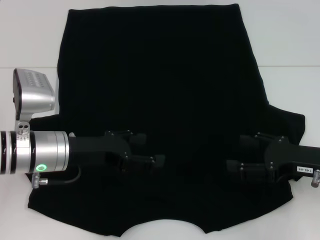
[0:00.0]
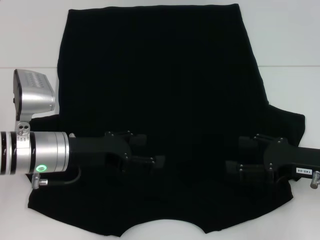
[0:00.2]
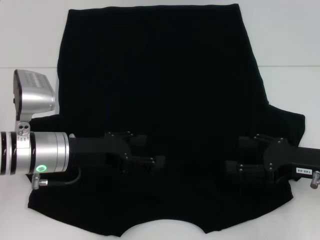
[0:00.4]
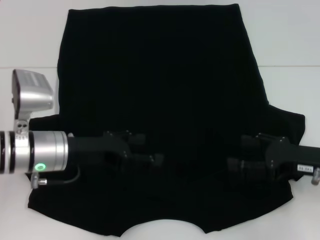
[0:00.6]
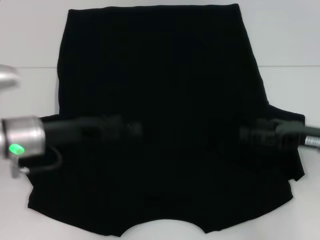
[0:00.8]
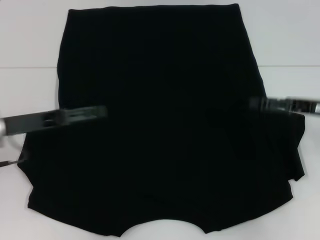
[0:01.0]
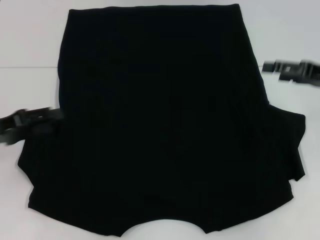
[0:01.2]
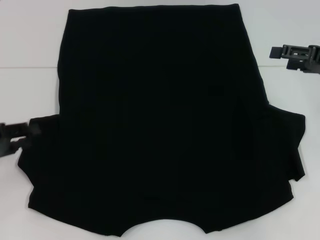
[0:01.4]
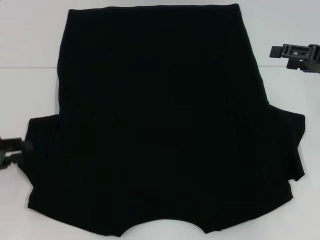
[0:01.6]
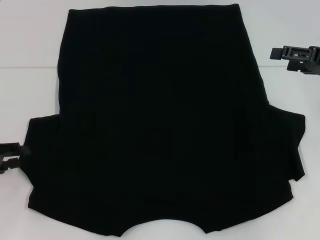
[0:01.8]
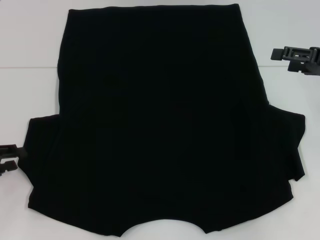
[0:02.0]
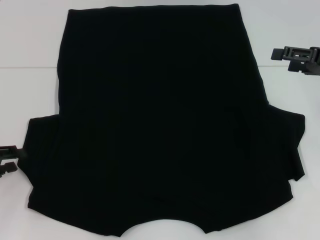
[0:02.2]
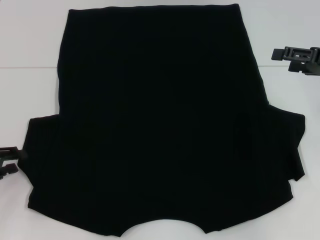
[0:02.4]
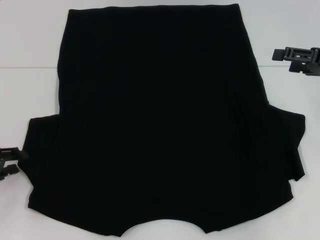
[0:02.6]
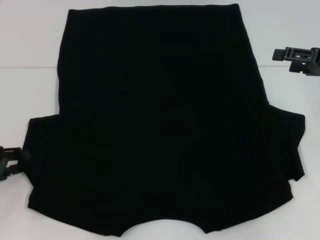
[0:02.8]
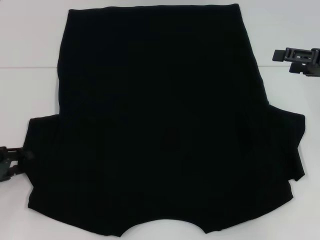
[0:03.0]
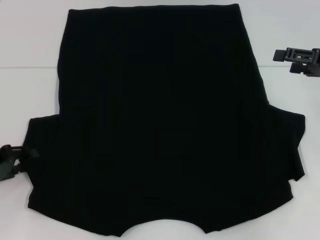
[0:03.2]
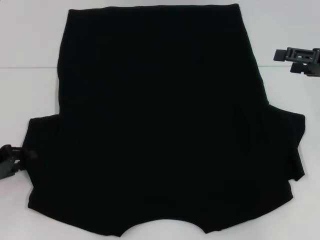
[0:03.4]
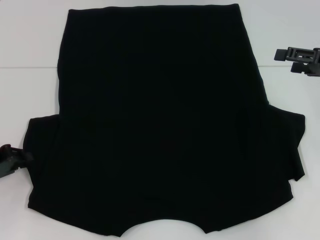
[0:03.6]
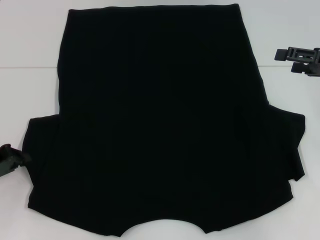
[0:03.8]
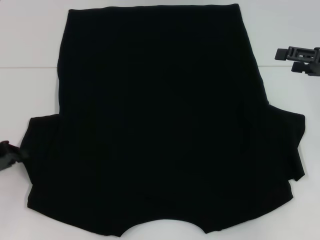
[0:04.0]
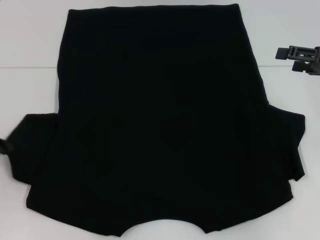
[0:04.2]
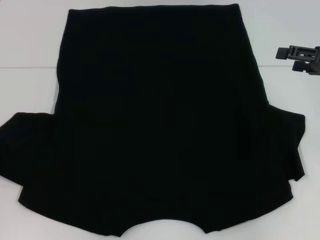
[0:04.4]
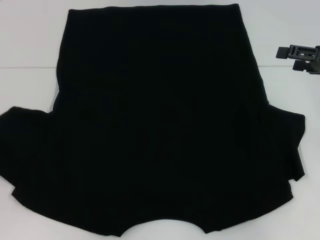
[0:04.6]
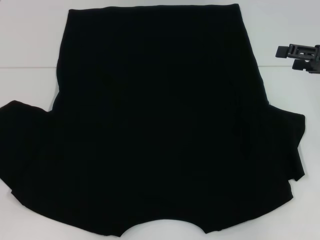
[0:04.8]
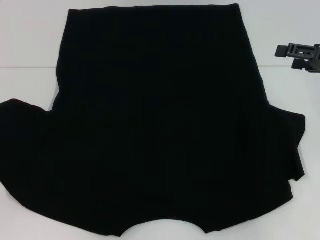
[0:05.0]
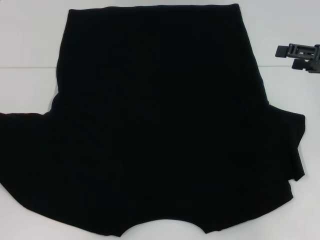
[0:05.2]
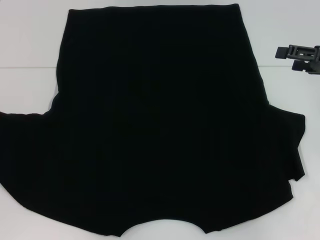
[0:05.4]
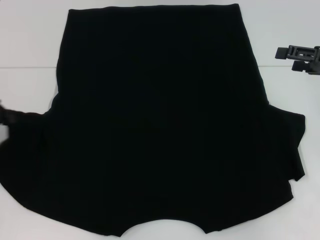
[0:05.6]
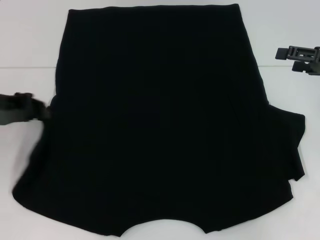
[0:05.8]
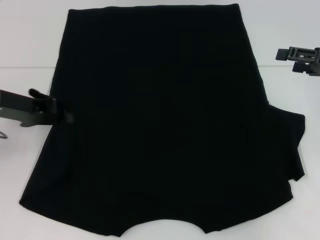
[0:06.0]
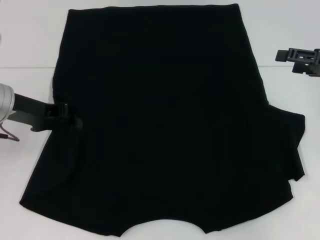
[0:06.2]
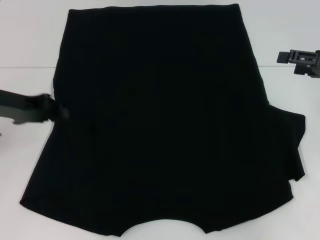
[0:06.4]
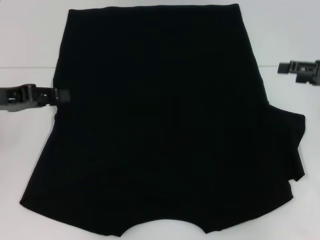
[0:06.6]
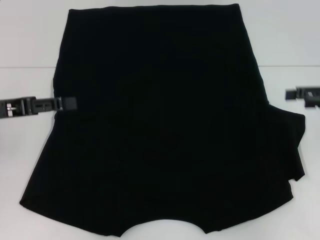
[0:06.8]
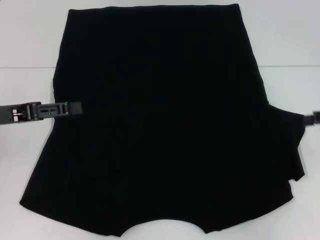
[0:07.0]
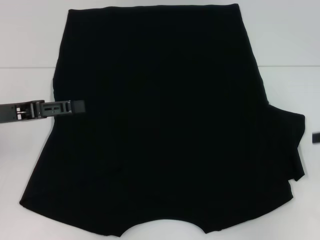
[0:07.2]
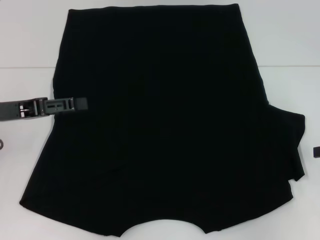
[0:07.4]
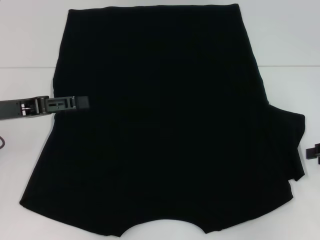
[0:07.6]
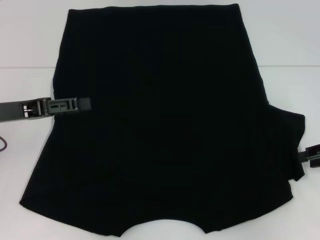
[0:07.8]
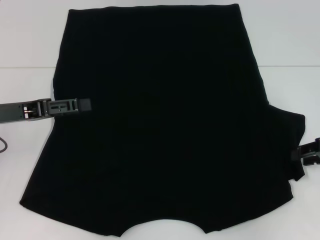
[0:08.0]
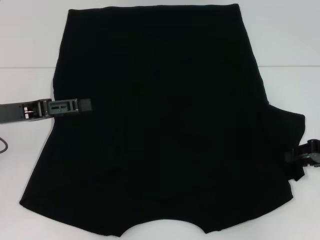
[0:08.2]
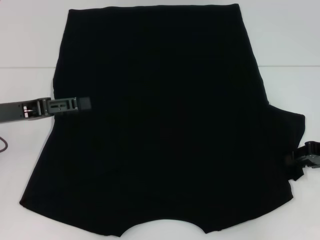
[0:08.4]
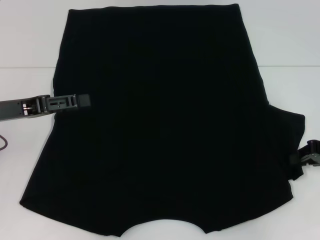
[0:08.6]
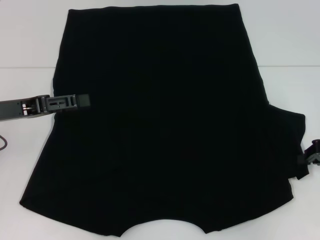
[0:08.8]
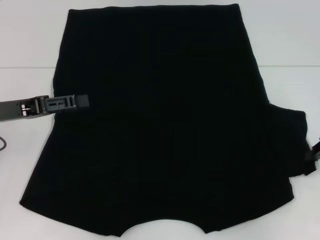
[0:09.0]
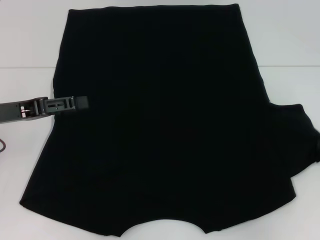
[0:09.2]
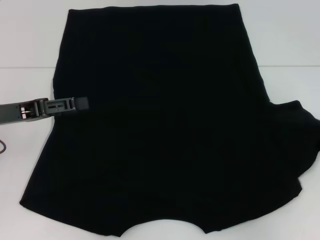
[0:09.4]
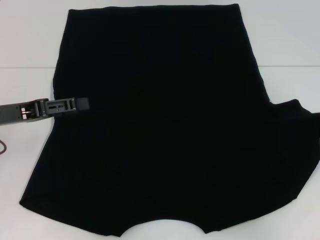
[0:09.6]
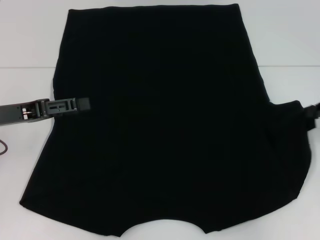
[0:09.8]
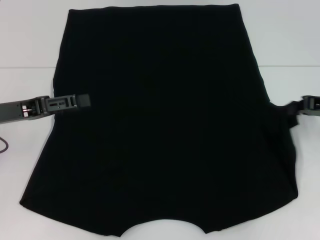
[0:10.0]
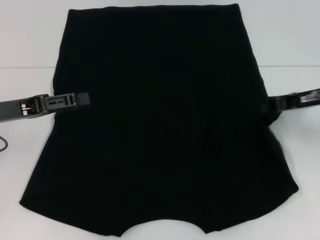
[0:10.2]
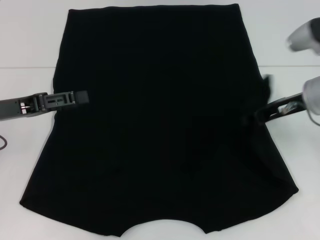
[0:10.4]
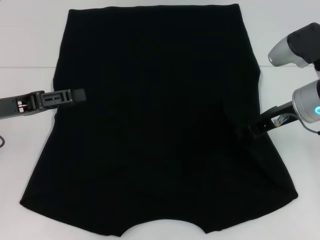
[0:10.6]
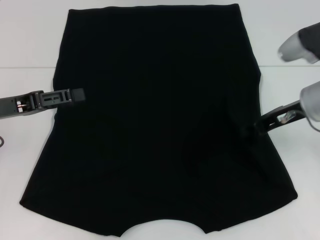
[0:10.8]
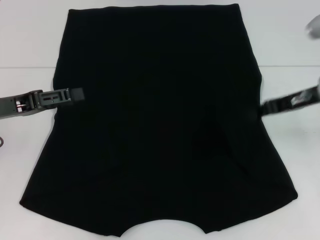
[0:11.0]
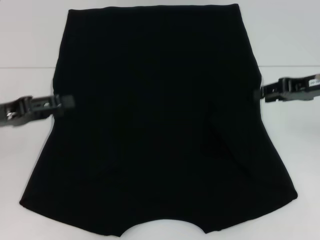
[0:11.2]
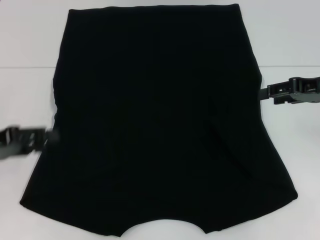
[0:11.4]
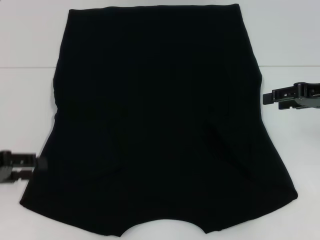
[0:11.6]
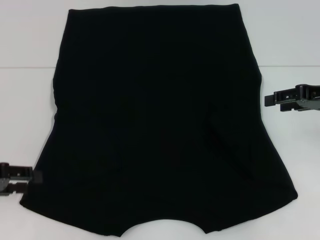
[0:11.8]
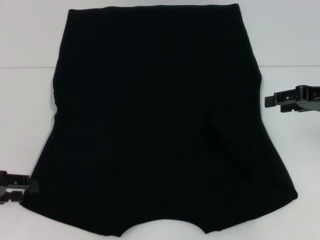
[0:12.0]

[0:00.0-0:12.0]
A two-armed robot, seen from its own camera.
Step, 0:00.0 to 0:07.0: Fold the bottom left sleeve with your left hand.
Step, 0:07.2 to 0:11.0: Fold the bottom right sleeve with your right hand.
0:00.0 to 0:01.6: The right gripper goes some 15 cm upward and forward. Meanwhile the left gripper goes about 15 cm to the left, and closes up.
0:01.6 to 0:03.0: The grippers move only a little.
0:03.0 to 0:04.4: The left gripper moves some 5 cm, and closes up.
0:04.4 to 0:06.0: The left gripper is displaced to the right, upward and forward by some 15 cm.
0:06.0 to 0:07.6: The left gripper opens; the right gripper heads backward, covering about 5 cm, and closes.
0:07.6 to 0:09.0: The right gripper closes its fingers.
0:09.0 to 0:10.4: The right gripper shifts some 15 cm to the left and forward.
0:10.4 to 0:12.0: The right gripper is displaced to the right by approximately 10 cm, and opens its fingers, while the left gripper travels backward and to the left by approximately 10 cm.

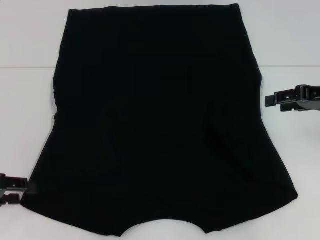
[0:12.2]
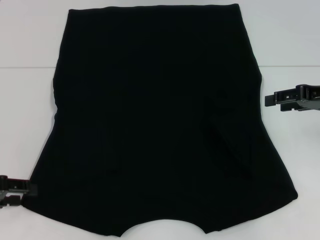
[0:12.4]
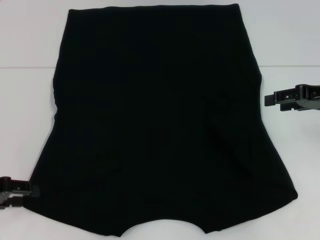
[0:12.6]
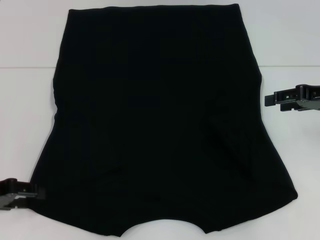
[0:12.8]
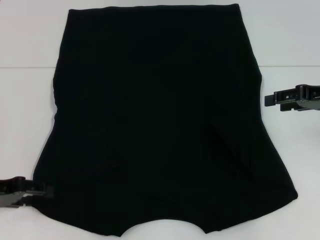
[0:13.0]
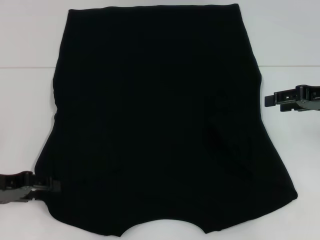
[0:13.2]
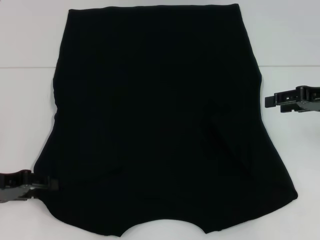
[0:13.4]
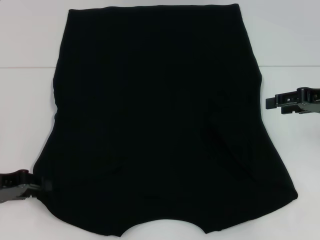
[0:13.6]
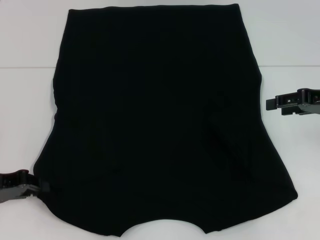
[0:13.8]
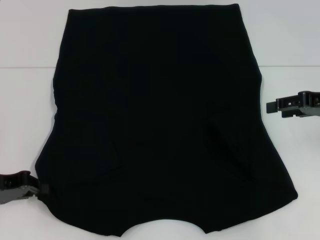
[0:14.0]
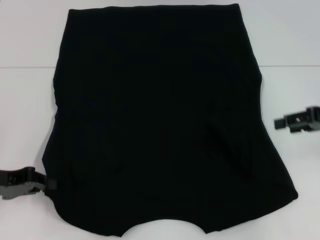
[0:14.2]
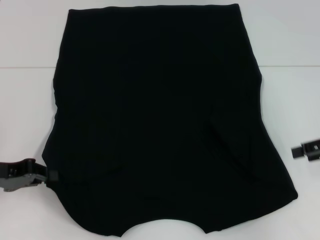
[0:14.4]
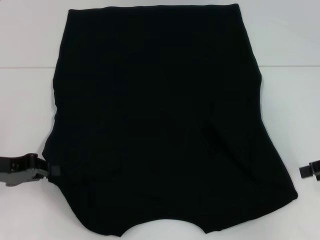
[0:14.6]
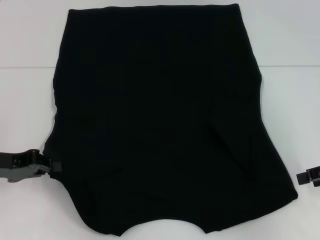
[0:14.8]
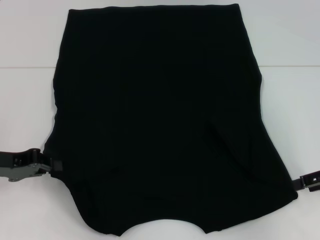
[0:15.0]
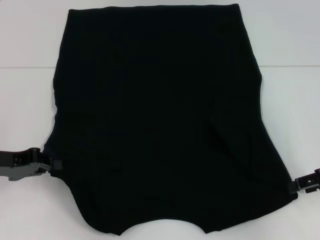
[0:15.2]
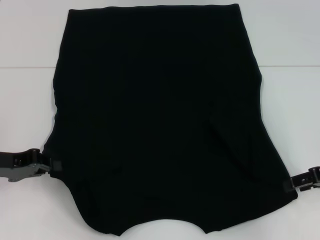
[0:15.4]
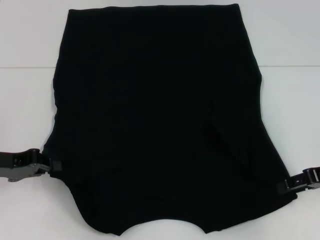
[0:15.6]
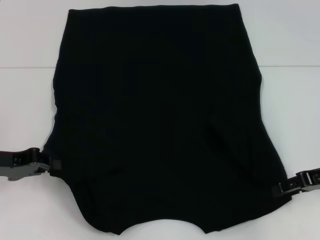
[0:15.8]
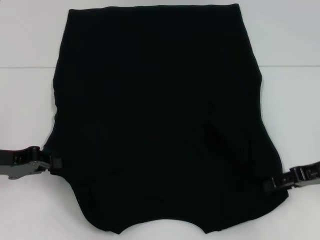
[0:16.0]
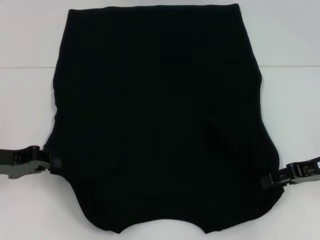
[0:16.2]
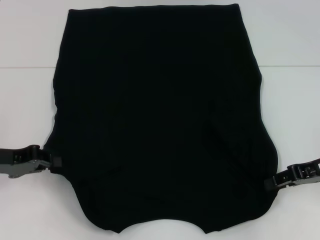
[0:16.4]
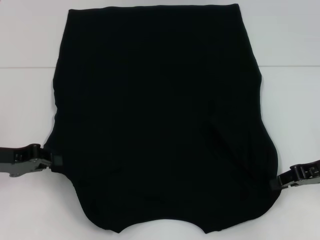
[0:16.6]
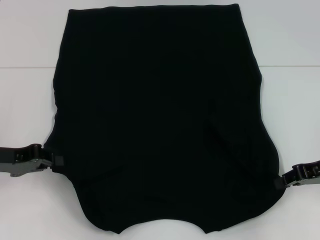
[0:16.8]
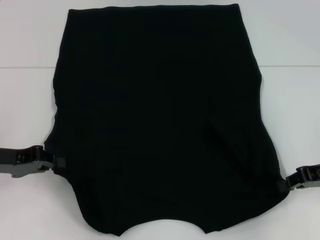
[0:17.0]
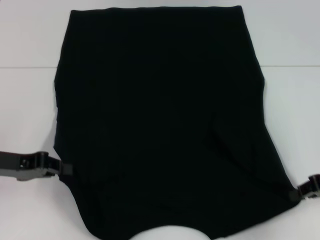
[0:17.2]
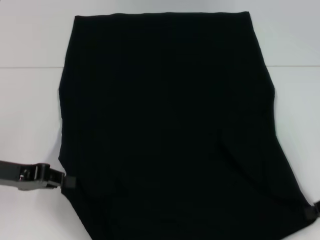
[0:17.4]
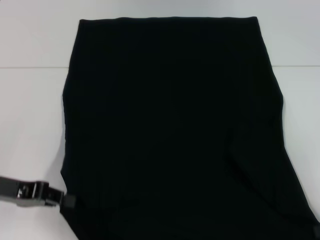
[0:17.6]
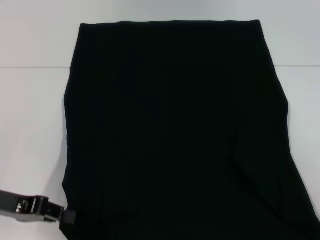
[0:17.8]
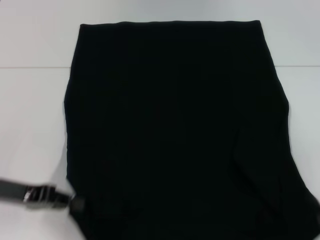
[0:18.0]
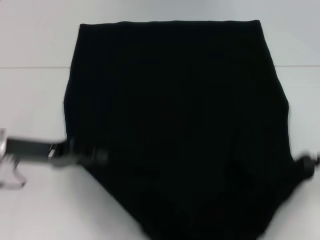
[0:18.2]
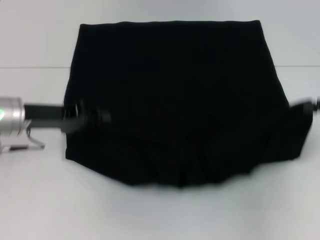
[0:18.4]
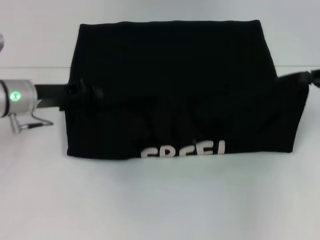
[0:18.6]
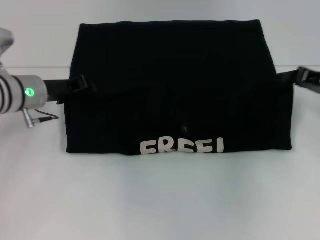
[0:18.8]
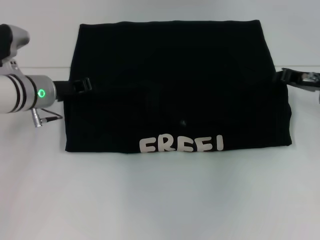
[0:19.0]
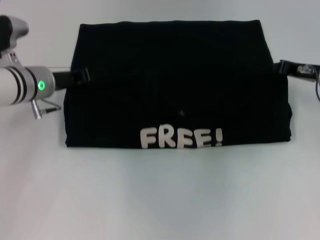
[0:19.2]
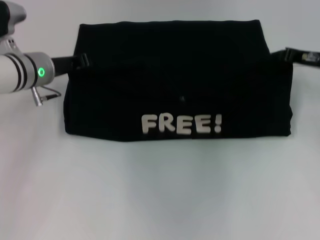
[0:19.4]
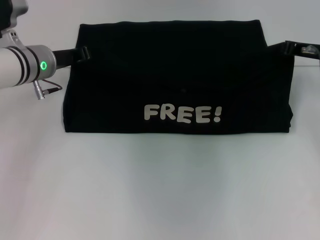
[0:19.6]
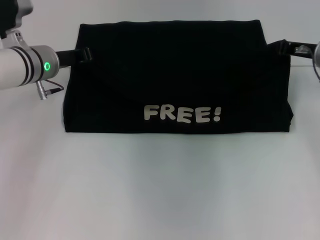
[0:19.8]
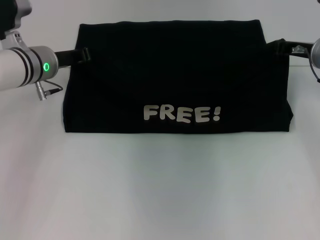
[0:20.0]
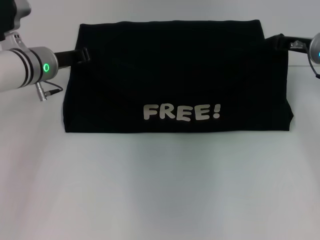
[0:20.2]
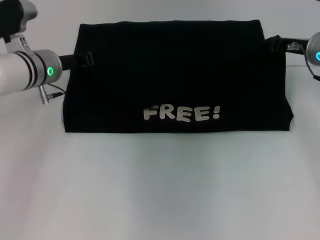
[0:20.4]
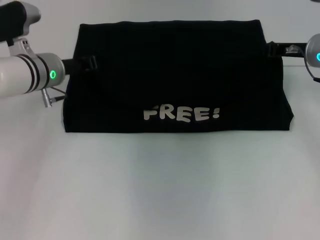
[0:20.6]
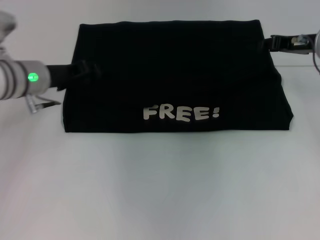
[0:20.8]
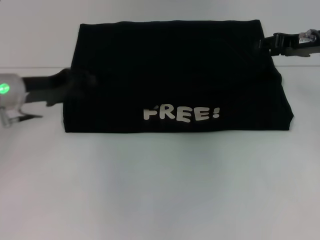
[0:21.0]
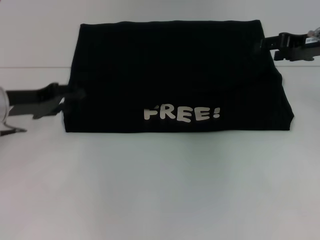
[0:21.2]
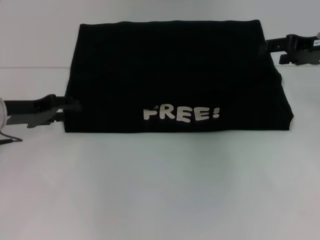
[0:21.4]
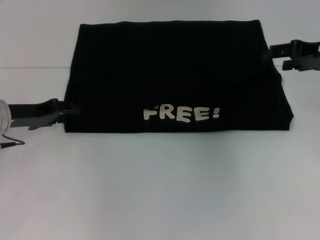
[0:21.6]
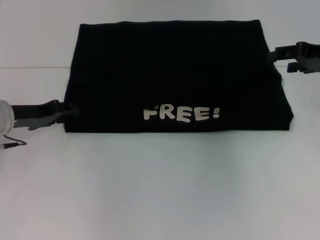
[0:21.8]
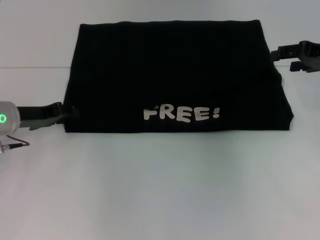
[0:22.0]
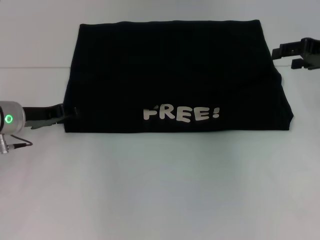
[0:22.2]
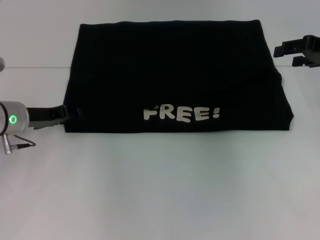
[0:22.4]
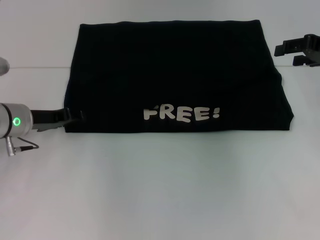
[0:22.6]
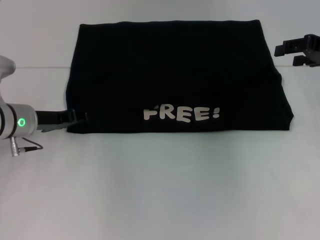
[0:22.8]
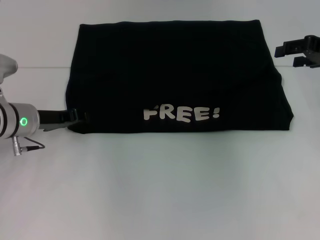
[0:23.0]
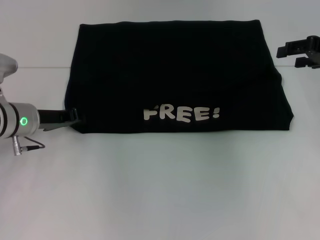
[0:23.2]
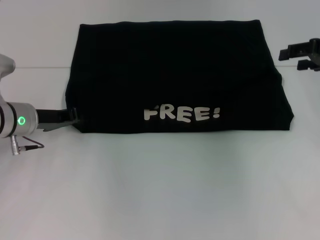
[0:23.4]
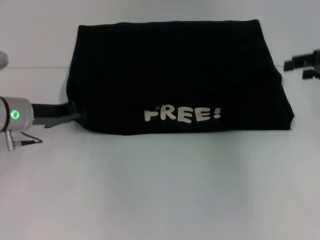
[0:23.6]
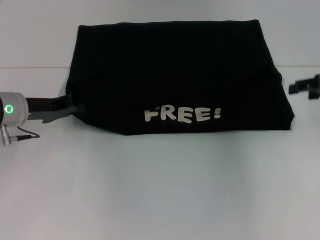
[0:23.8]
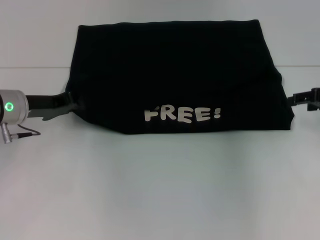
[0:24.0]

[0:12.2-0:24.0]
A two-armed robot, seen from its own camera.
Step, 0:12.2 to 0:16.2: Grab the bottom left corner with your left hand.
Step, 0:12.2 to 0:16.2: Grab the bottom right corner with your right hand.
Step, 0:16.4 to 0:21.0: Fold the clothes with your left hand.
Step, 0:16.4 to 0:21.0: Fold the clothes with your right hand.
0:12.2 to 0:13.6: The grippers stay close to where they were, moving slightly.
0:13.6 to 0:15.2: The left gripper closes its fingers; the right gripper heads backward and downward, covering approximately 10 cm.
0:15.2 to 0:16.6: There are only small adjustments of the grippers.
0:16.6 to 0:18.2: The right gripper travels to the right by about 5 cm; the left gripper changes place by roughly 5 cm.
0:18.2 to 0:19.6: The left gripper heads forward, covering about 15 cm, while the right gripper is displaced forward and to the left by approximately 20 cm.
0:19.6 to 0:21.0: The left gripper goes approximately 5 cm backward.
0:21.0 to 0:22.6: The right gripper moves roughly 5 cm, and opens.
0:22.6 to 0:24.0: The left gripper closes. Meanwhile the right gripper travels downward by about 5 cm.
